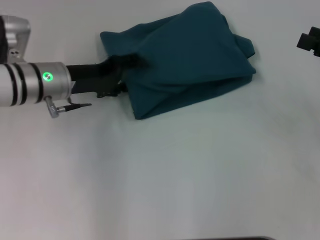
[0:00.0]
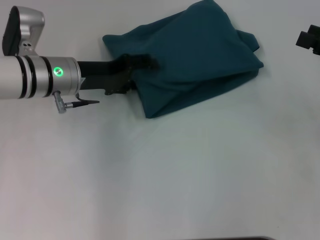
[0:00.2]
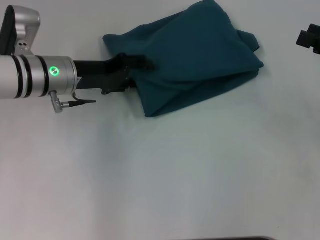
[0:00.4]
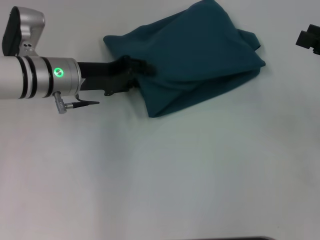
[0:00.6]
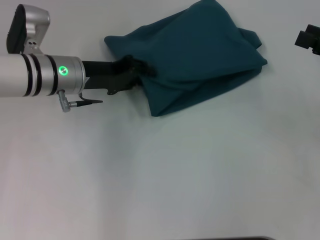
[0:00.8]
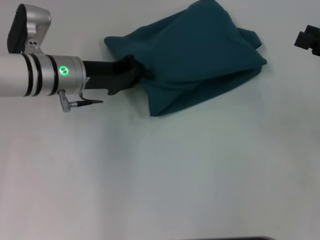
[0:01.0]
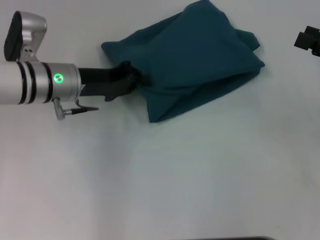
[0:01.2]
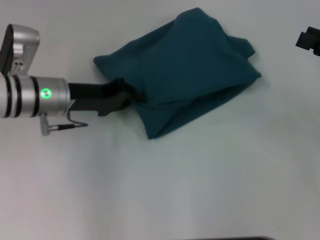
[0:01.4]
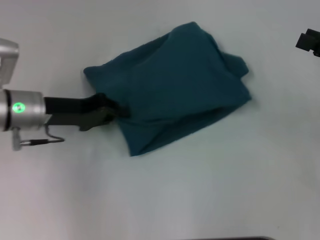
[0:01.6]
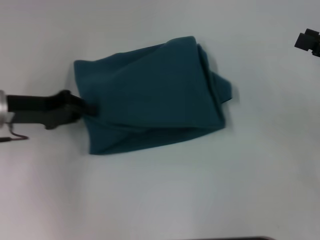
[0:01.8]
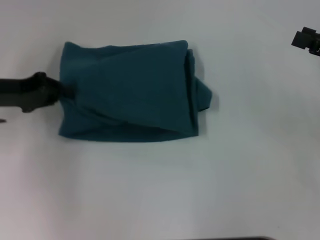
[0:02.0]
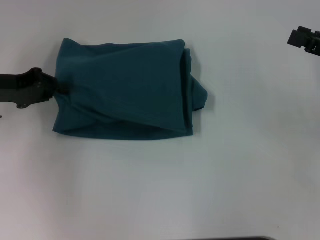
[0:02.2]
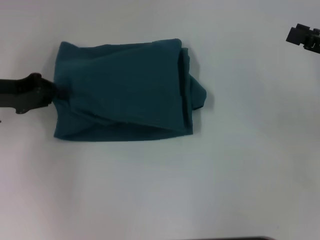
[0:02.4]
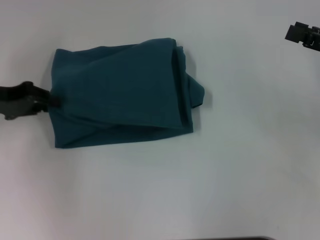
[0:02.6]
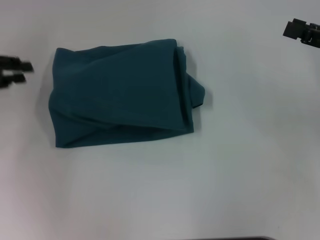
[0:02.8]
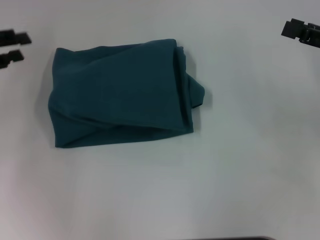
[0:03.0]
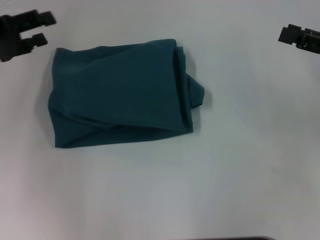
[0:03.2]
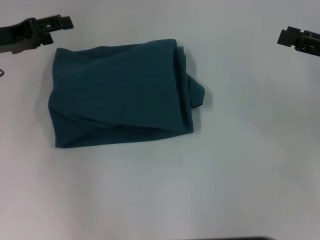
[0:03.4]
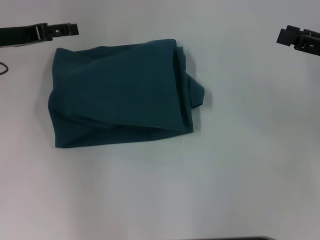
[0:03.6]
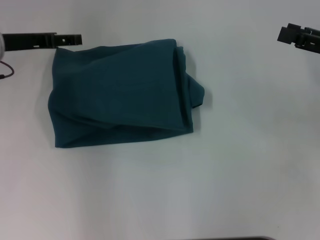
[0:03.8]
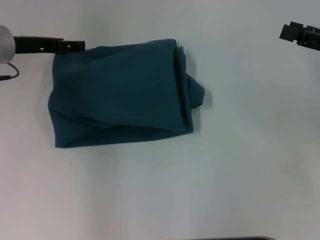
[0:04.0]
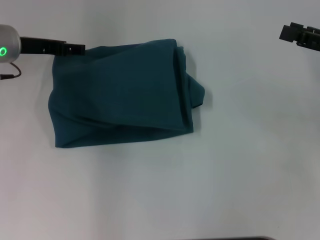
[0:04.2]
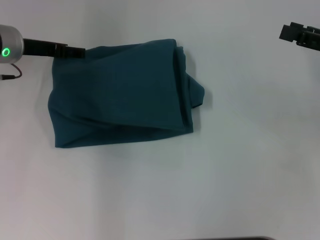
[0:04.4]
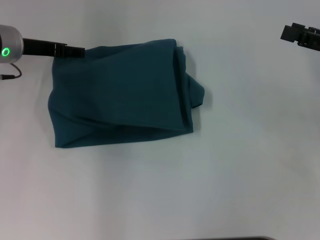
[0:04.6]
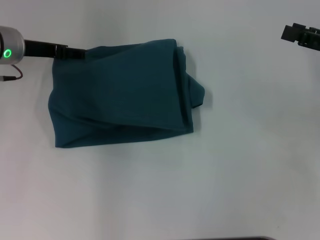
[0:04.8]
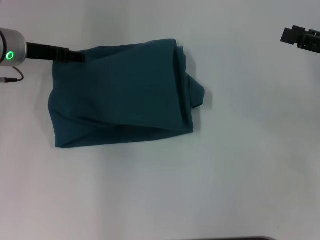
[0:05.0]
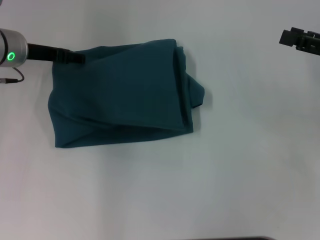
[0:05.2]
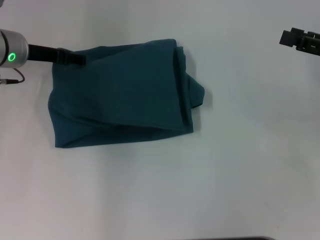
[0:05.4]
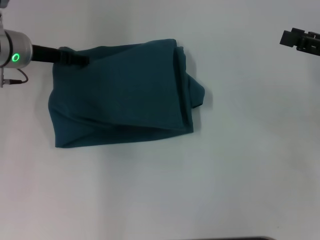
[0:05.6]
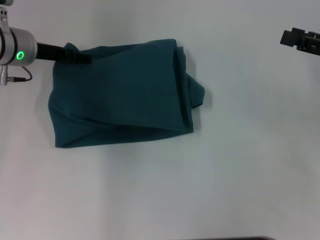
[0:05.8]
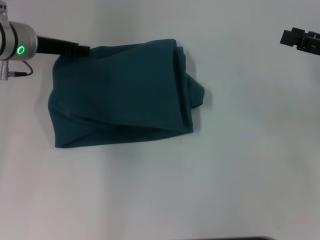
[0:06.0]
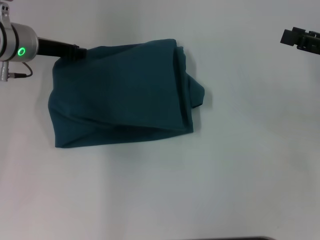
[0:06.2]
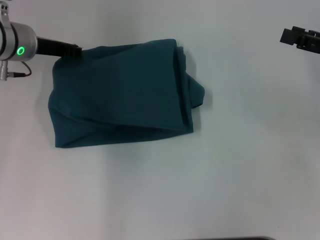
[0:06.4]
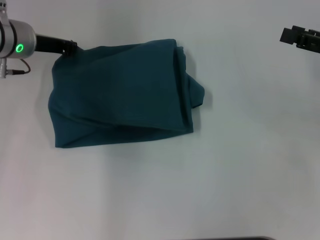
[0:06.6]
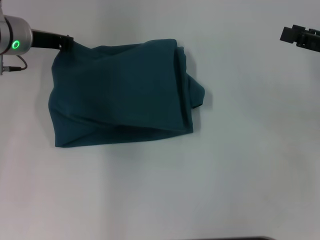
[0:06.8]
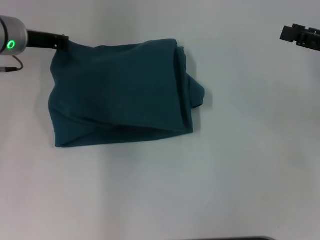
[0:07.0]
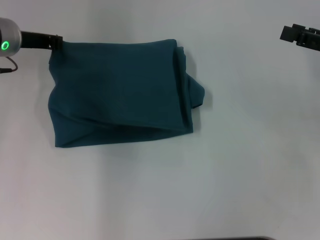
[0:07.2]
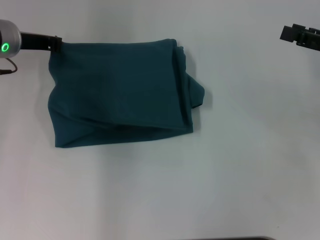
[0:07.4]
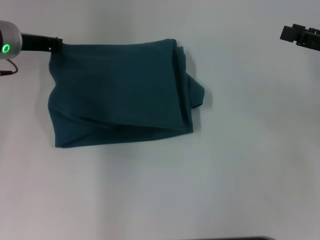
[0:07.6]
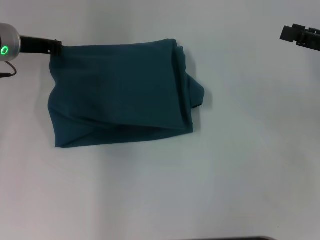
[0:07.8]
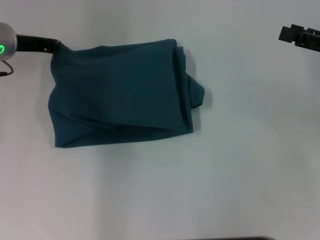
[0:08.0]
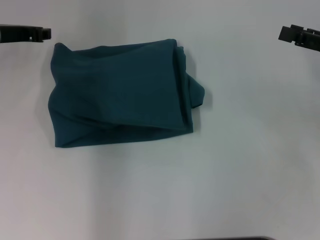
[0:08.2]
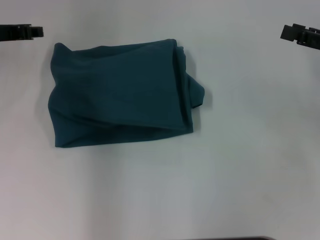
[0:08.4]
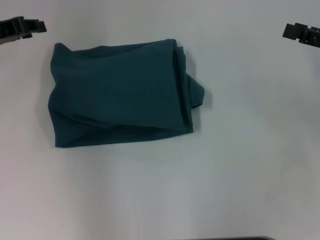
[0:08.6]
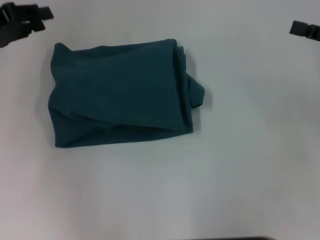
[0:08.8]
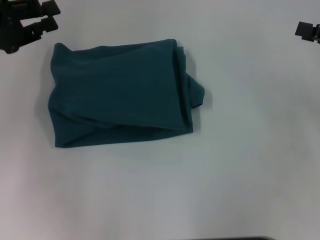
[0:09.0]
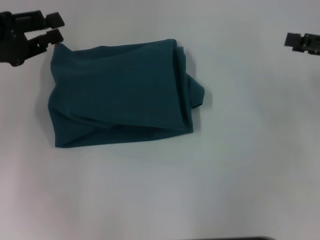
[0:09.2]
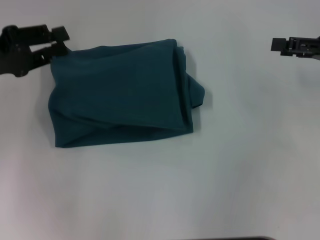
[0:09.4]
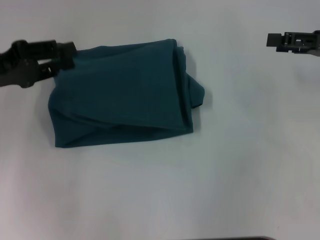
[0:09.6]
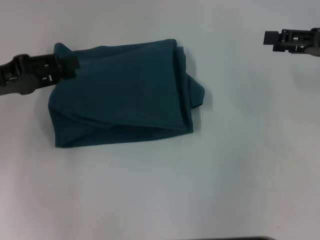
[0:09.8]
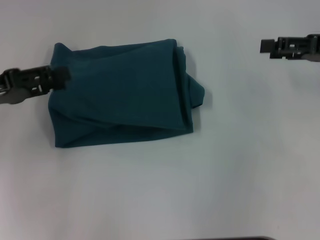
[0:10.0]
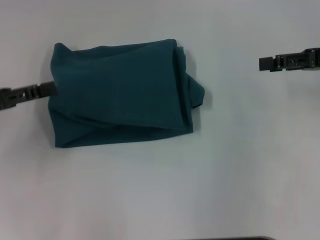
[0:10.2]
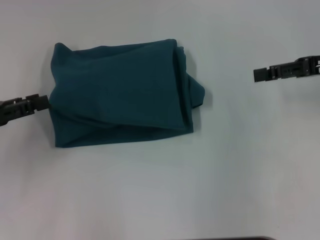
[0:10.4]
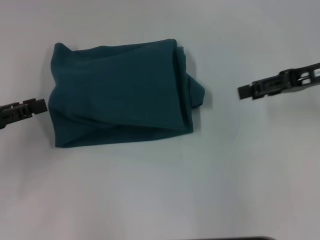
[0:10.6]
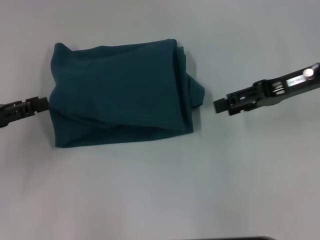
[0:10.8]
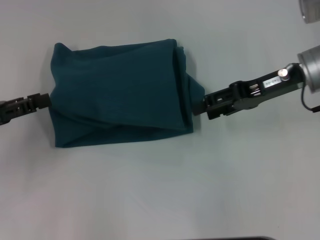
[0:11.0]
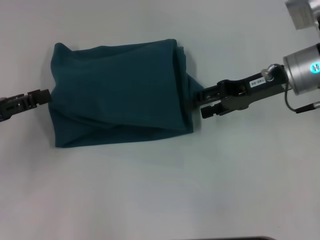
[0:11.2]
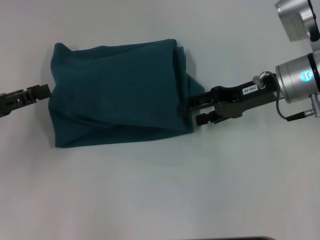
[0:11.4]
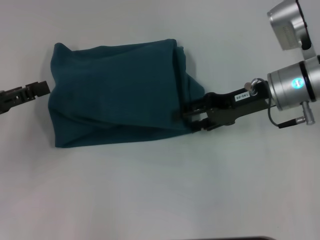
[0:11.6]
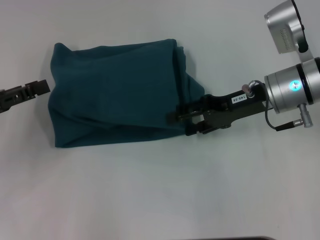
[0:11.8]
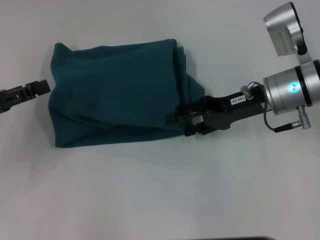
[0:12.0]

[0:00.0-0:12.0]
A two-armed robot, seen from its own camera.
0:00.0 to 0:01.6: The left gripper closes.
0:01.6 to 0:03.0: The left gripper moves to the left and upward, some 15 cm.
0:03.0 to 0:04.4: The left gripper moves to the right and forward, roughly 15 cm, and opens its fingers.
0:04.4 to 0:06.0: There are only small adjustments of the grippers.
0:06.0 to 0:07.6: The left gripper closes.
0:07.6 to 0:09.0: The left gripper travels backward and to the left by roughly 10 cm, and opens.
0:09.0 to 0:10.4: The right gripper moves roughly 5 cm. Meanwhile the left gripper shifts some 10 cm backward and downward.
0:10.4 to 0:12.0: The right gripper heads to the left and downward, covering approximately 15 cm.

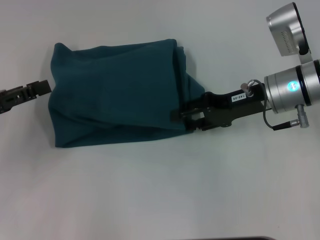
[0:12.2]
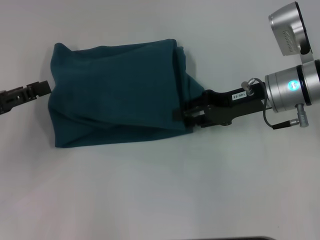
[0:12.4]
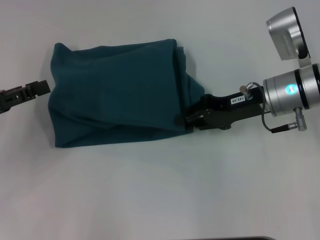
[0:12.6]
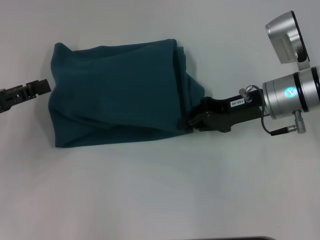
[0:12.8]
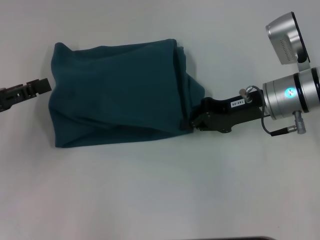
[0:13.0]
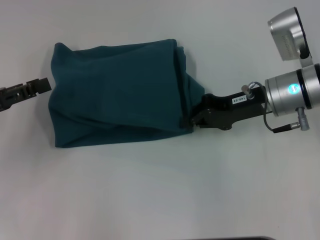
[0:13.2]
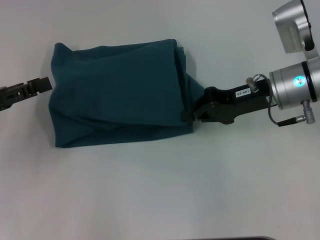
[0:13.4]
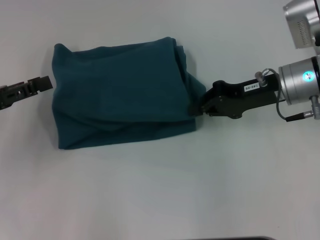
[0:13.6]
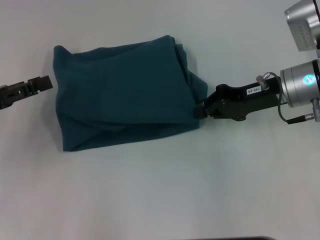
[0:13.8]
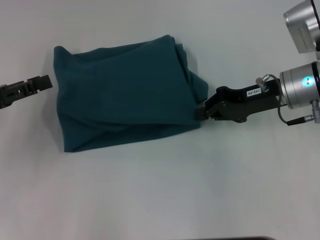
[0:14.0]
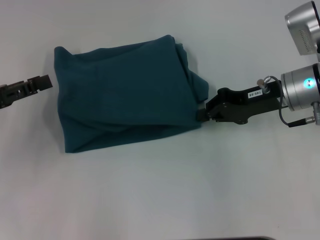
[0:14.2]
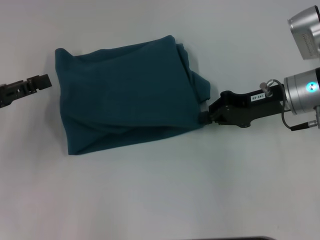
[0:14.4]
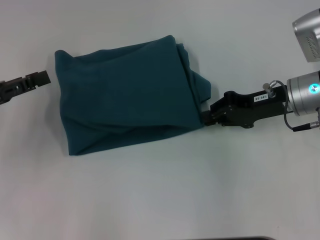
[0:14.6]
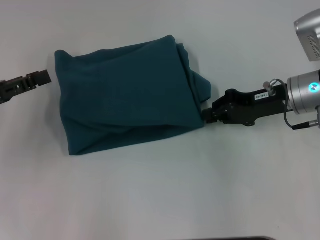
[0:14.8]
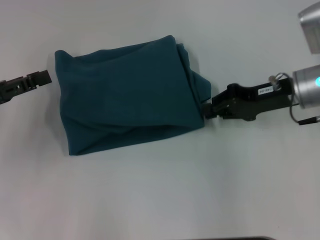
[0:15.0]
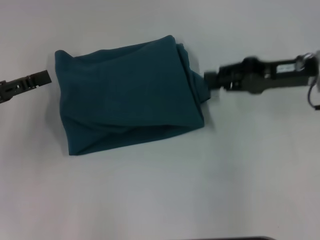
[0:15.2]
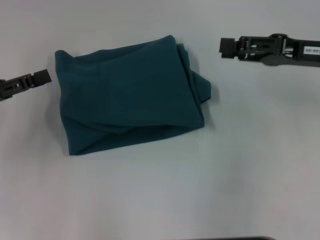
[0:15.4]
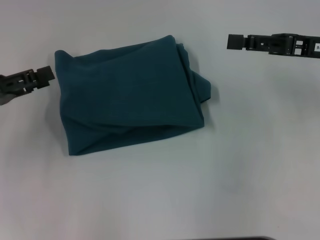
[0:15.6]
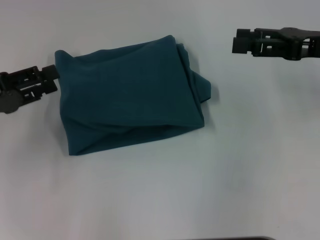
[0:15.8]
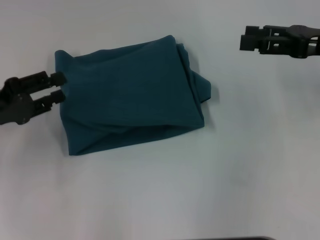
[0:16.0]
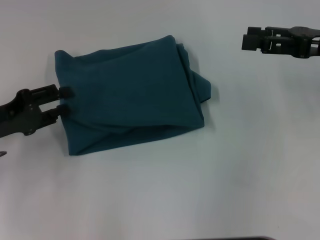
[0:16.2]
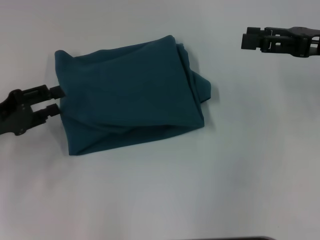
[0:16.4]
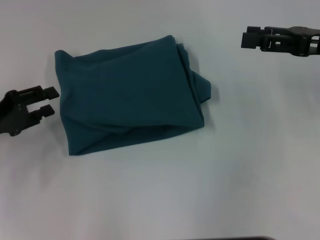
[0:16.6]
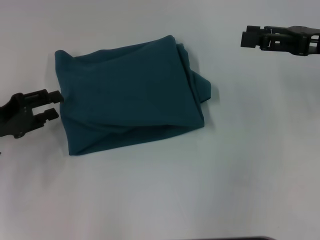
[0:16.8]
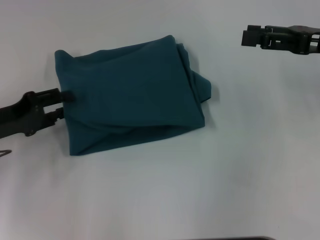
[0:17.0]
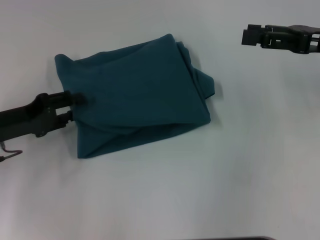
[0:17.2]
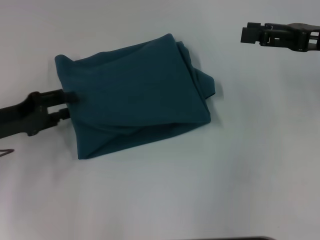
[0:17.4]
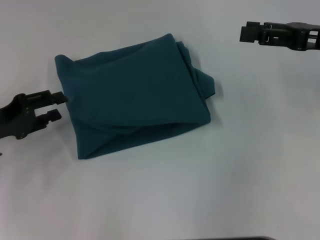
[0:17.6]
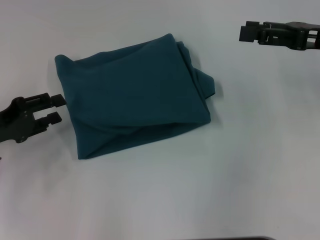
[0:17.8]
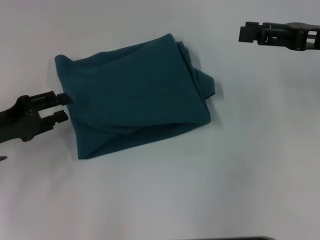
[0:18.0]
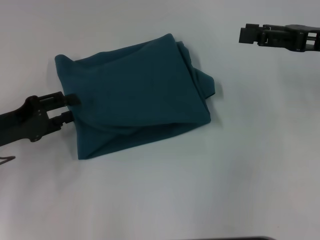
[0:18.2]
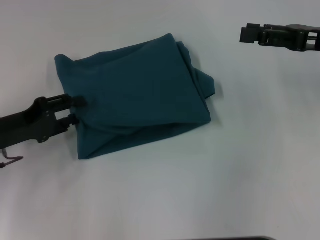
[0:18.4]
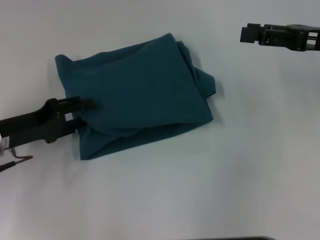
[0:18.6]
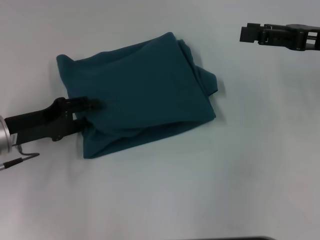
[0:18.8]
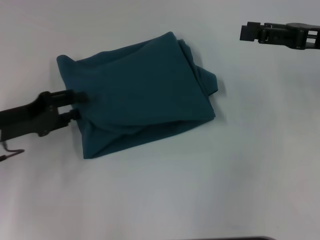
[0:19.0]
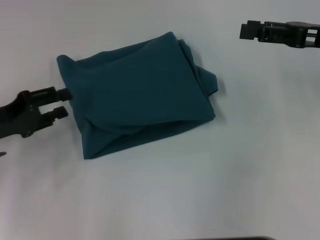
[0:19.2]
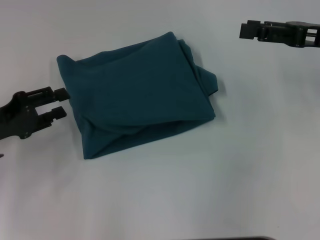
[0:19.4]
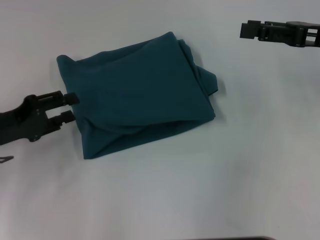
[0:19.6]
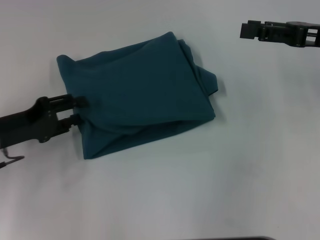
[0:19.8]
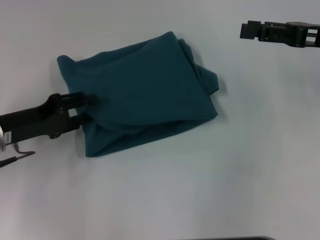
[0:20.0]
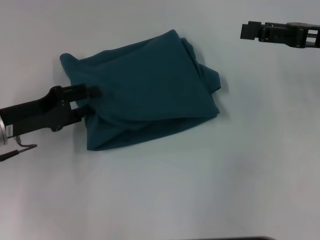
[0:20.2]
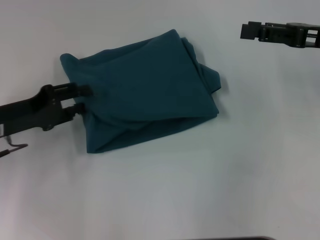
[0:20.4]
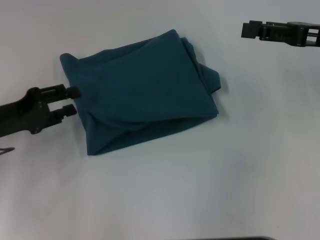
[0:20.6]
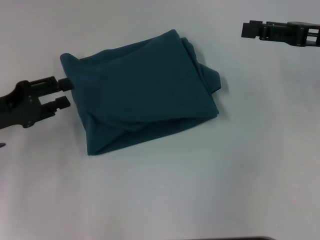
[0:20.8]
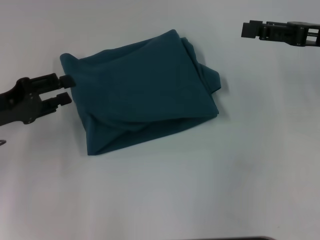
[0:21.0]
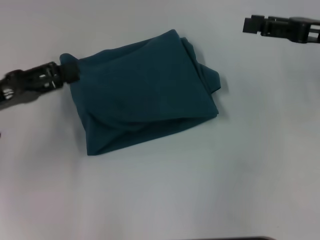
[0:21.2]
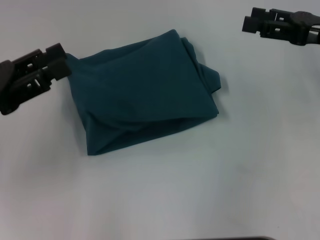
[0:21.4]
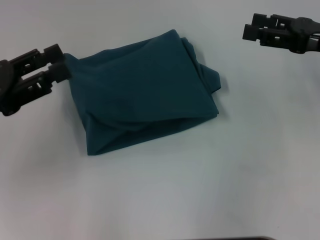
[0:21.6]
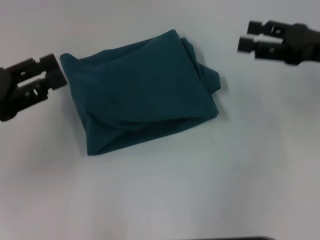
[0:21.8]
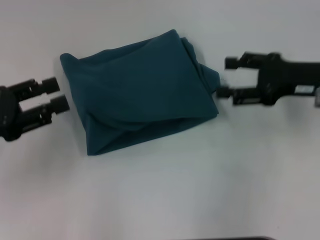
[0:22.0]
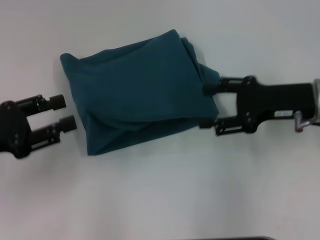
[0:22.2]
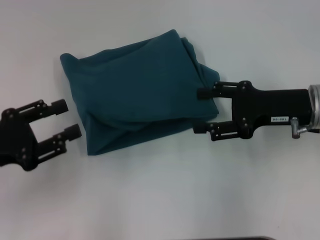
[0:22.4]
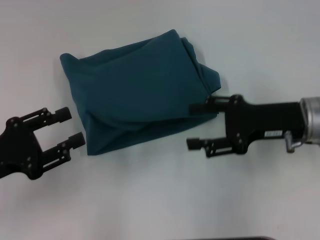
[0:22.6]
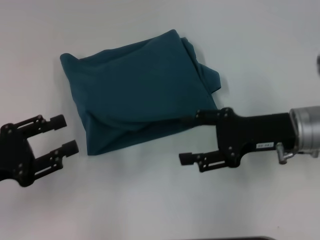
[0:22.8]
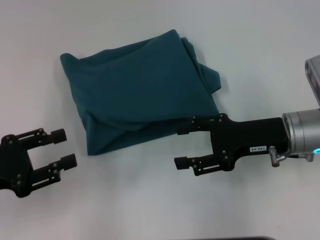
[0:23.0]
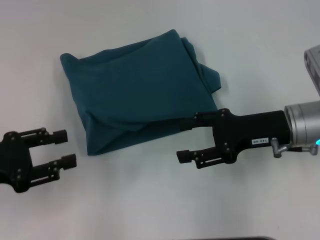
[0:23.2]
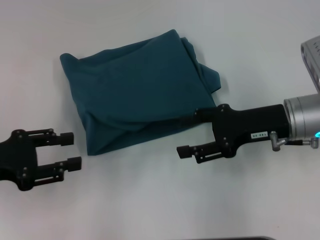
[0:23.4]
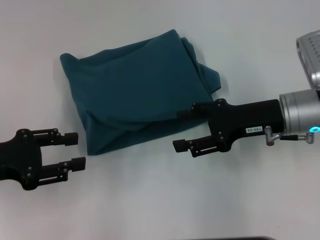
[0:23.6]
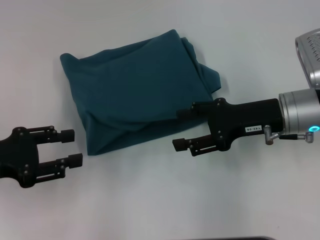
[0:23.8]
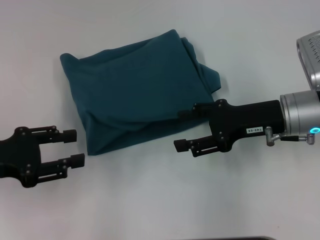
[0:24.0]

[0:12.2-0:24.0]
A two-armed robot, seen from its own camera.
0:12.2 to 0:13.6: The right gripper closes up.
0:13.6 to 0:15.2: The grippers make only small movements.
0:15.2 to 0:16.6: The right gripper moves about 5 cm, and opens up.
0:16.6 to 0:21.0: There are only small adjustments of the grippers.
0:21.0 to 0:22.6: The left gripper travels backward by approximately 5 cm; the right gripper is displaced to the left, downward and backward by approximately 10 cm.
0:22.6 to 0:24.0: The grippers stay close to where they were, moving slightly.
